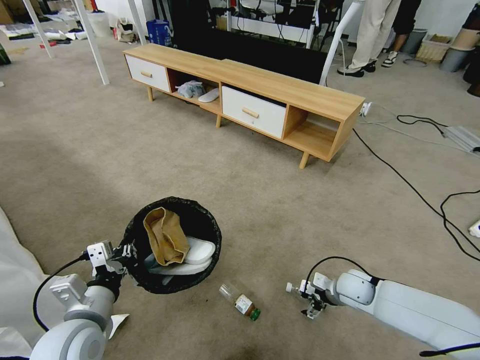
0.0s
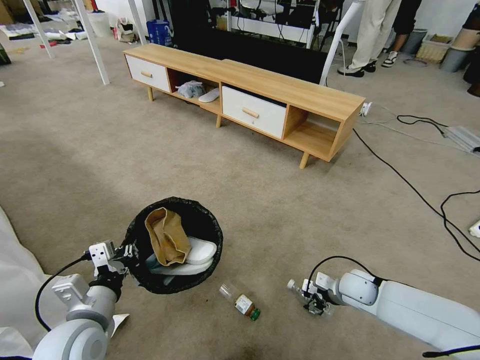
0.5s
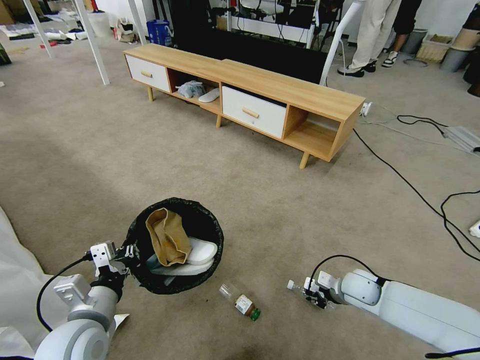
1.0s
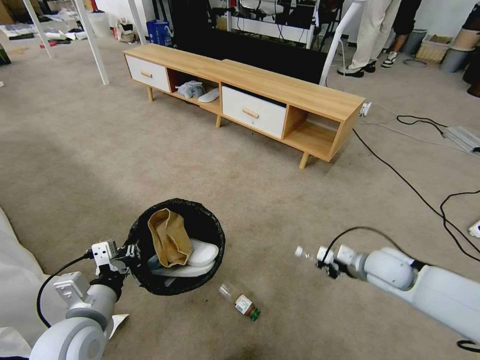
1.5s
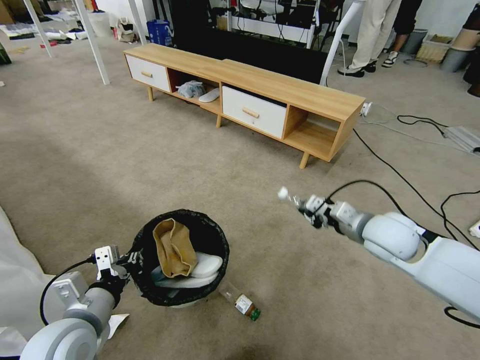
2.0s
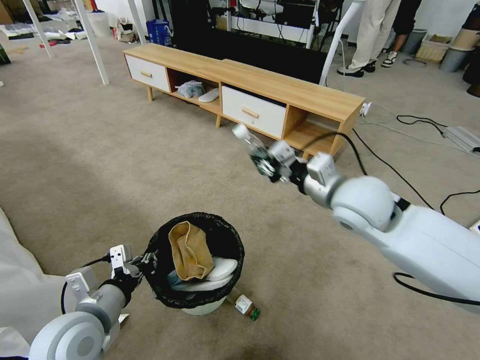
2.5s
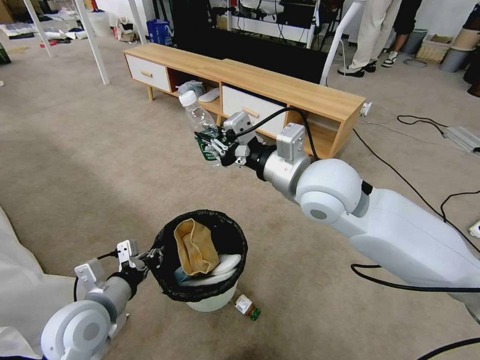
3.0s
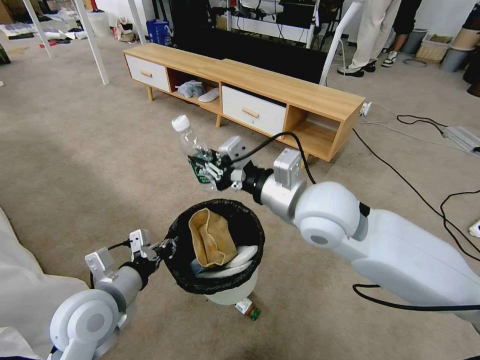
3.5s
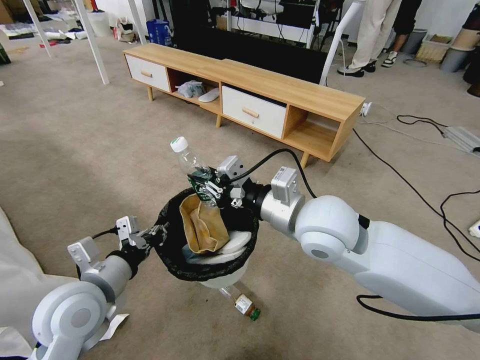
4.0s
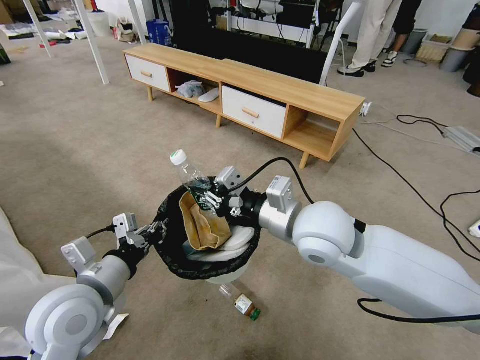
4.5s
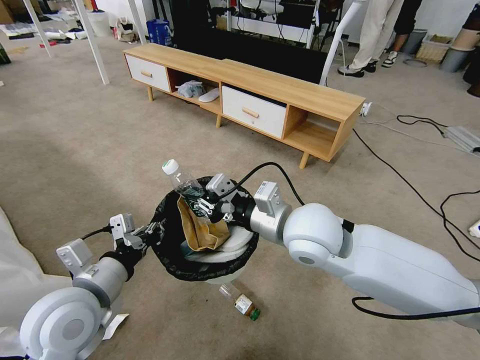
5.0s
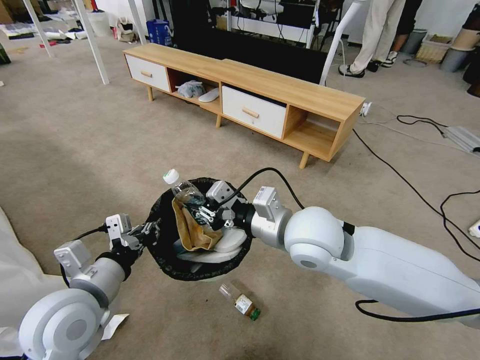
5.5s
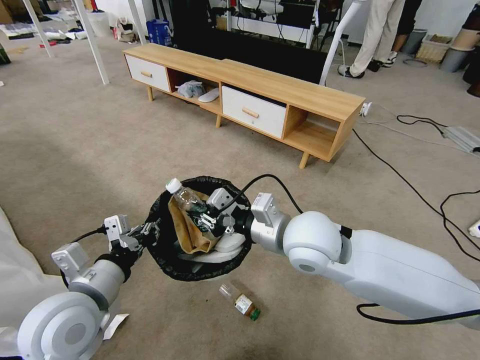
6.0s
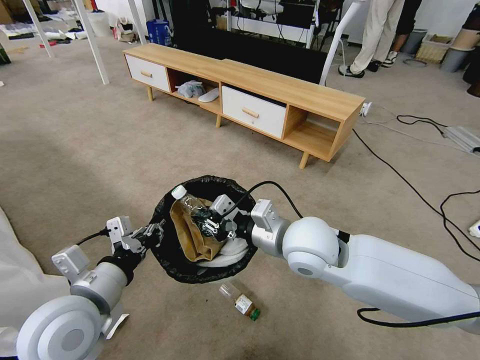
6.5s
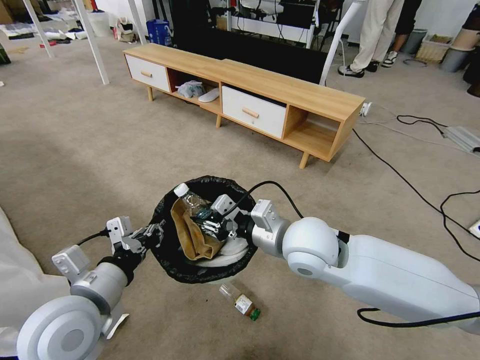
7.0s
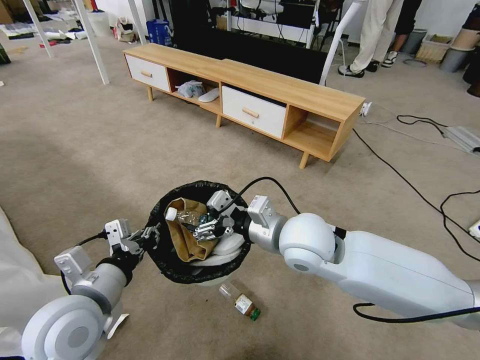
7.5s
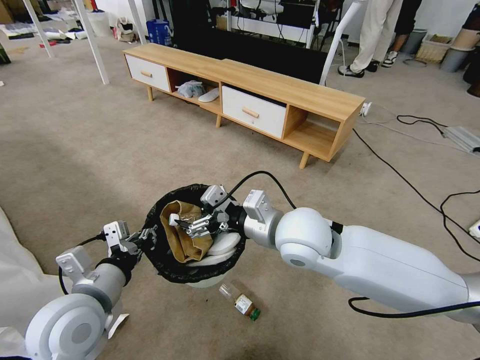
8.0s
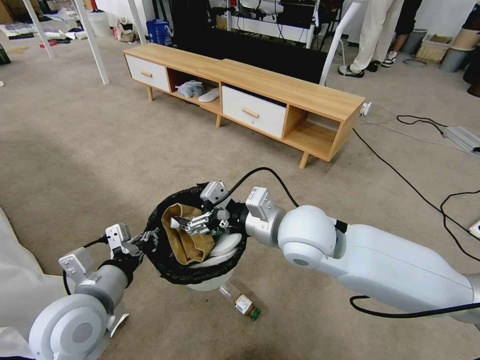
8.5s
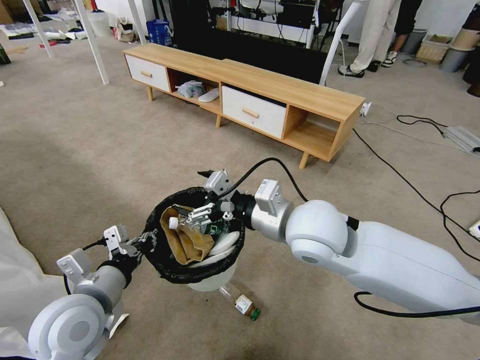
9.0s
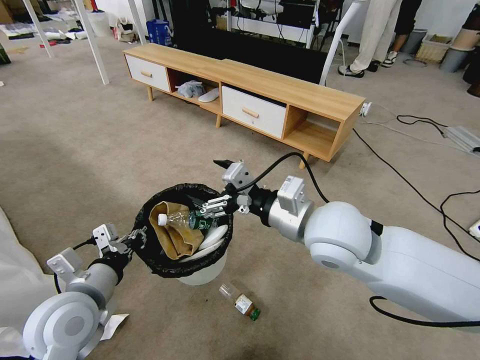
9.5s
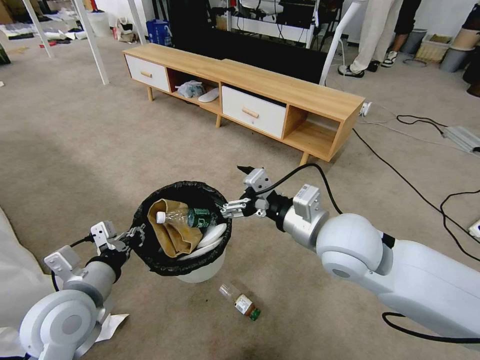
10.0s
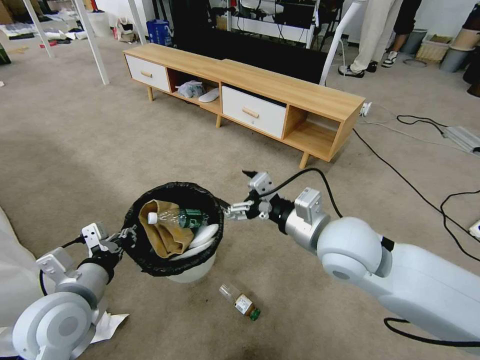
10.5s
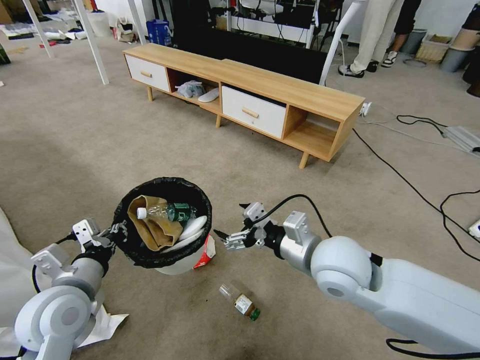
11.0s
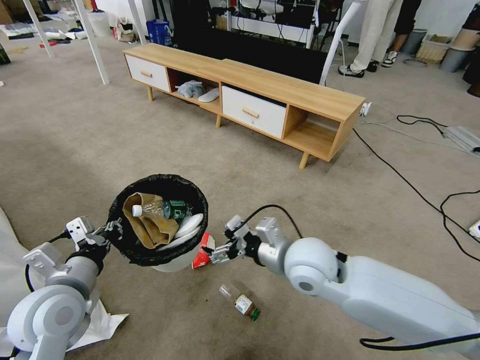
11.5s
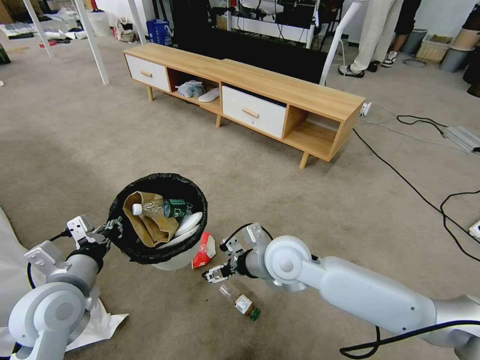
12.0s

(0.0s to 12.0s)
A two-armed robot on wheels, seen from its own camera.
Task of the whole recording: Pick up the trash bin and place the garbage on the floor into it.
0.0s - 2.0s: The right gripper travels upward by approximately 25 cm, and closes up.
2.0s - 4.0s: The left gripper changes place by some 5 cm. Meanwhile the right gripper shifts about 20 cm to the left and upward.
4.0s - 6.0s: The grippers stay close to where they were, moving slightly.
6.0s - 8.0s: The right gripper opens up.
8.0s - 10.0s: The right gripper is displaced to the right by roughly 5 cm.
10.0s - 12.0s: The right gripper is displaced downward and to the left by approximately 15 cm.

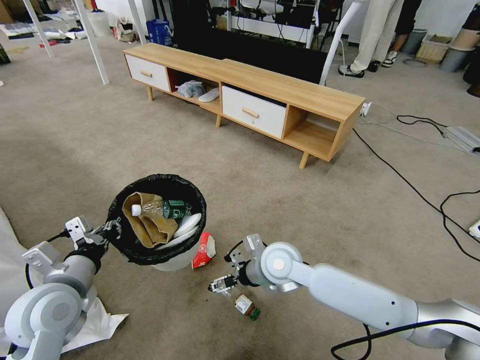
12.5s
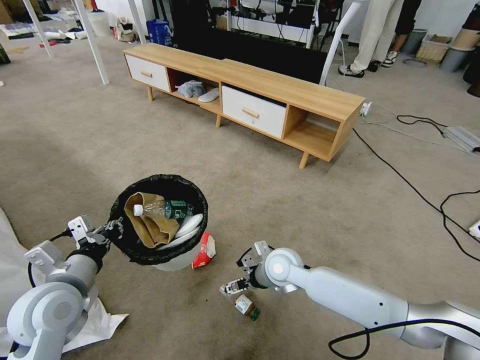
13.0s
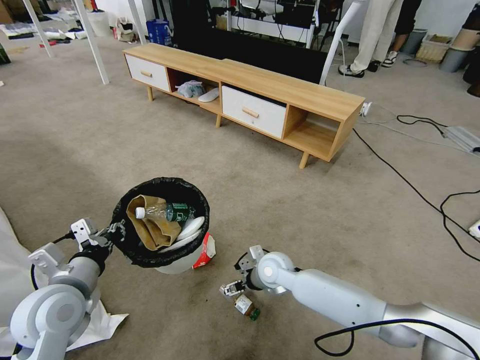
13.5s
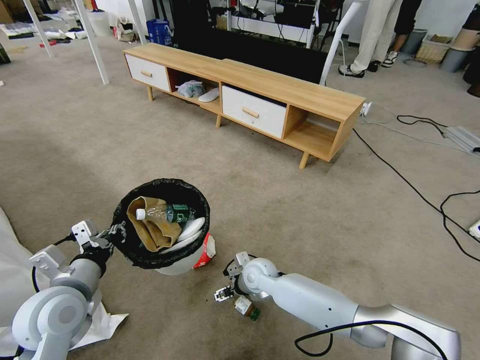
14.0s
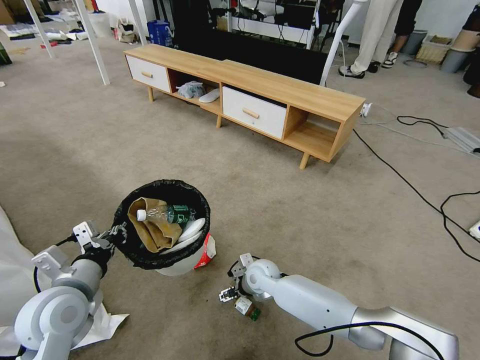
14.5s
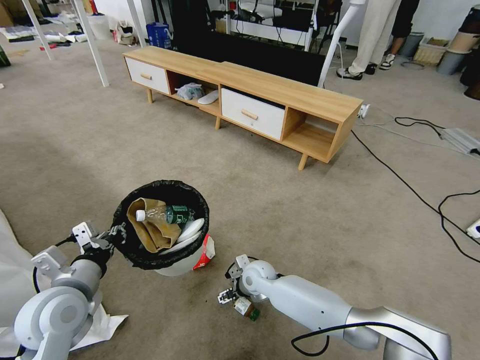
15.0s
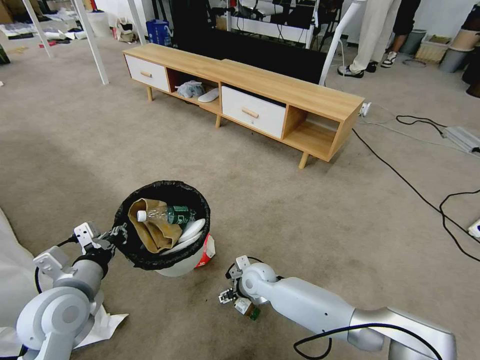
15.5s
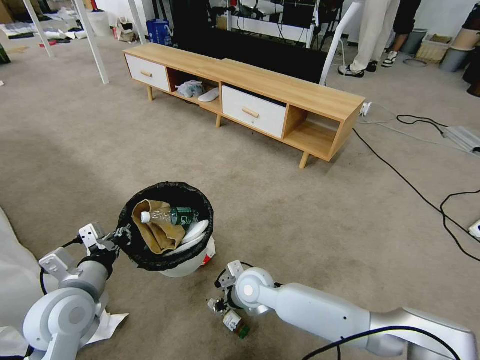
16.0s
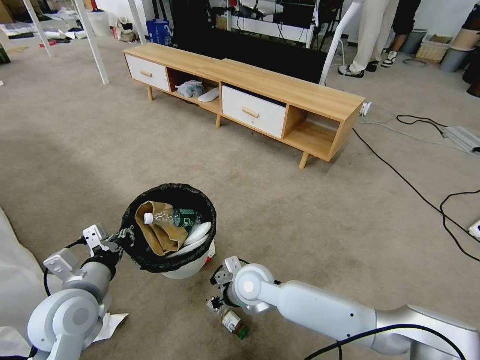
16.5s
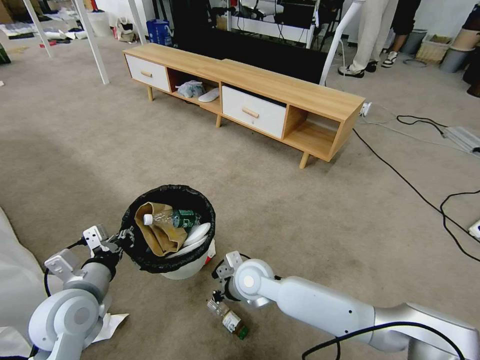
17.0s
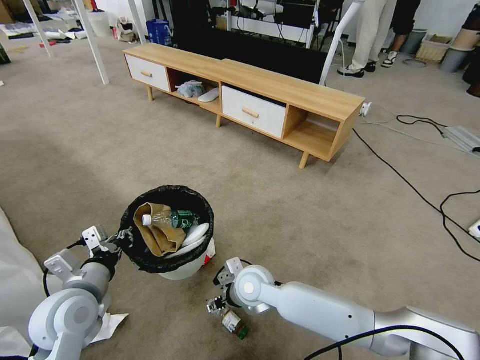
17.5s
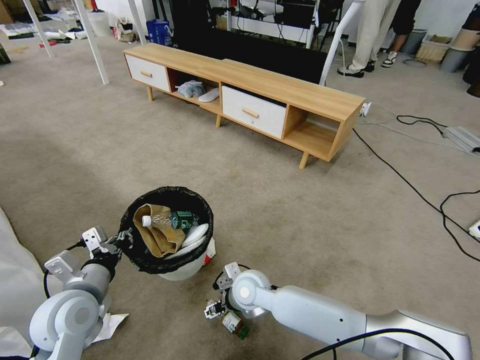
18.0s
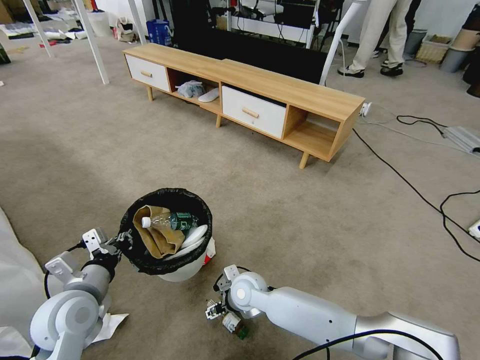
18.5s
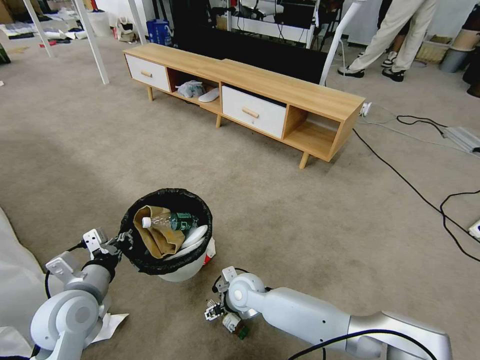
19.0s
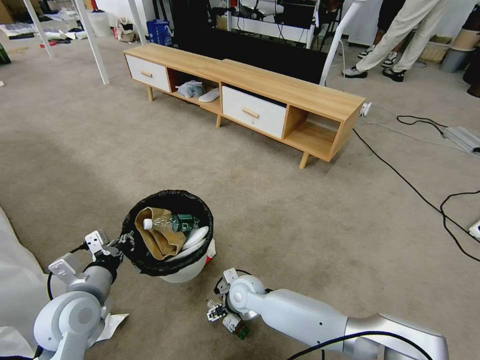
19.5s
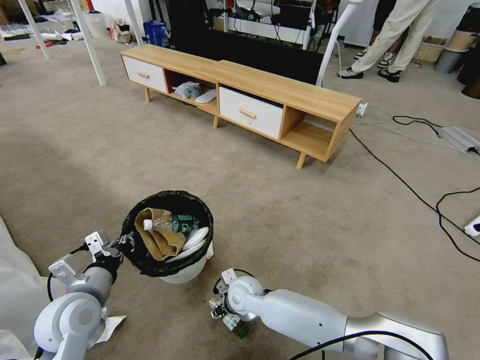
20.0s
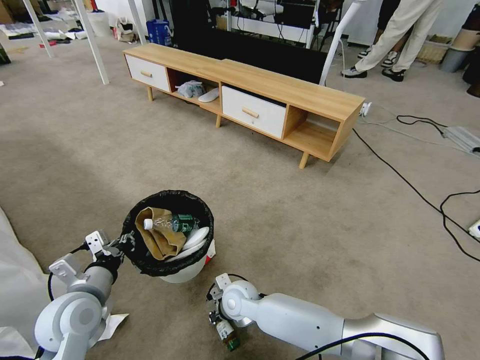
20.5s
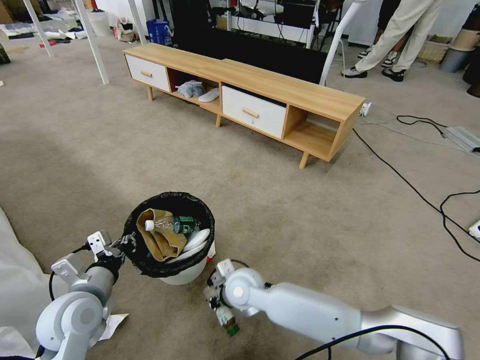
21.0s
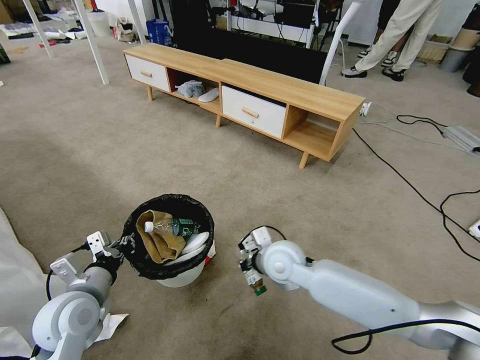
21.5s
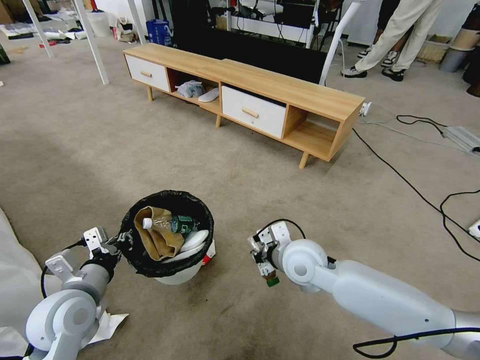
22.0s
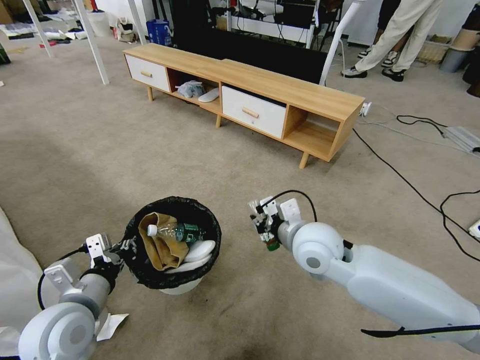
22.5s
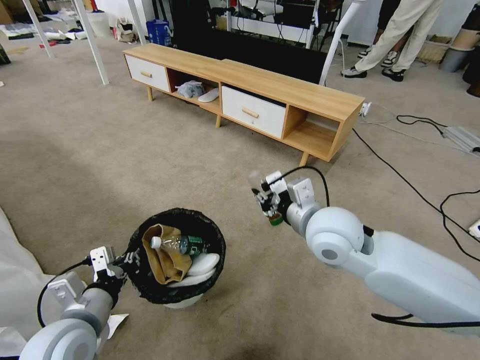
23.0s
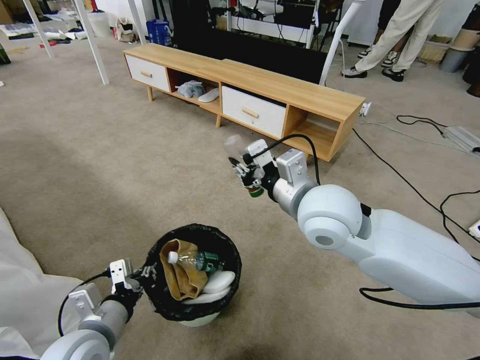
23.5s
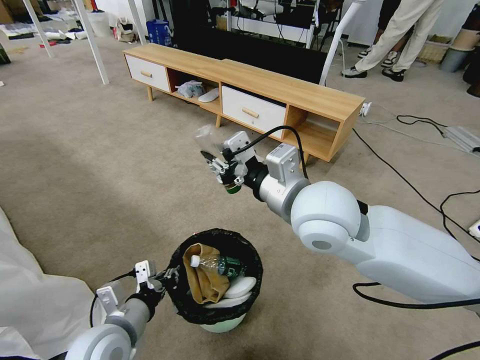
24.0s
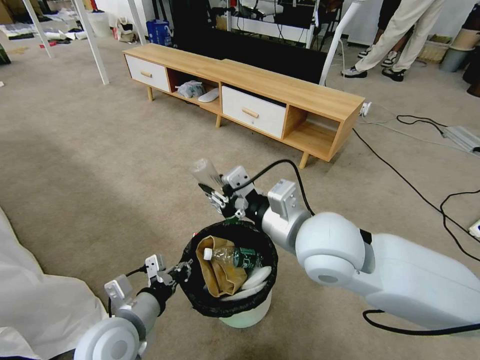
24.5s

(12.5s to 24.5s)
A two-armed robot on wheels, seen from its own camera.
Task of the whole recording: Pick up the trash bin and place the garbage on the floor into it.
12.5s - 14.5s: The right gripper moves downward, roughly 15 cm.
14.5s - 16.5s: The right gripper goes about 10 cm upward and backward, and closes its fingers.
16.5s - 18.5s: The right gripper travels downward by about 5 cm, and opens up.
18.5s - 20.5s: The right gripper closes up.
20.5s - 22.5s: The right gripper travels upward and to the right by some 30 cm.
22.5s - 24.5s: The right gripper travels upward and backward by approximately 10 cm, while the left gripper moves to the right, about 5 cm.

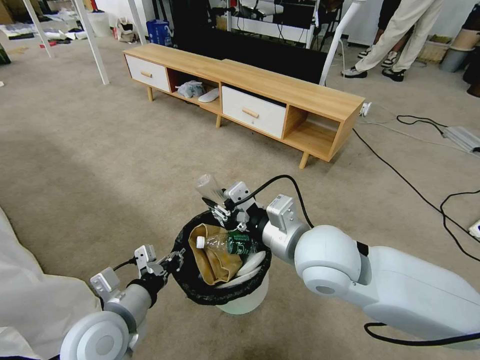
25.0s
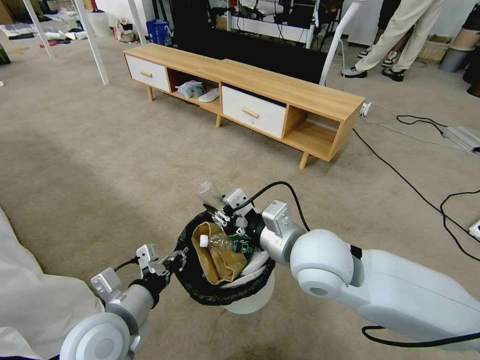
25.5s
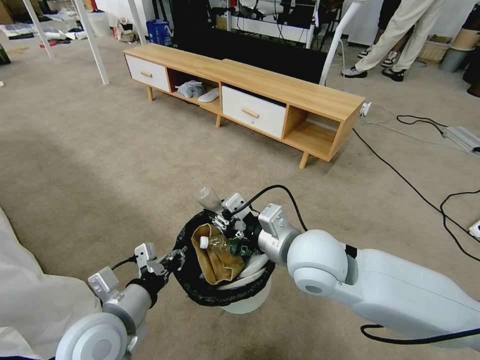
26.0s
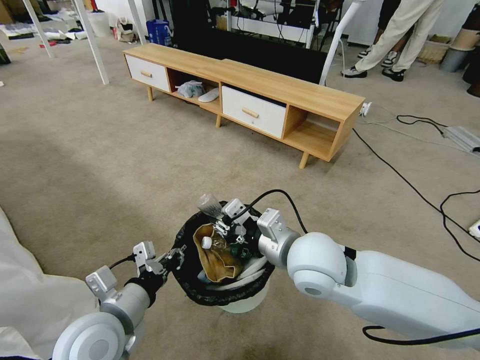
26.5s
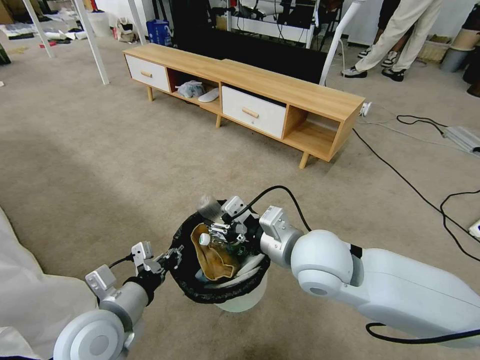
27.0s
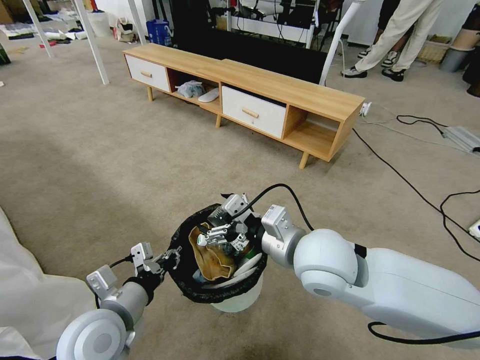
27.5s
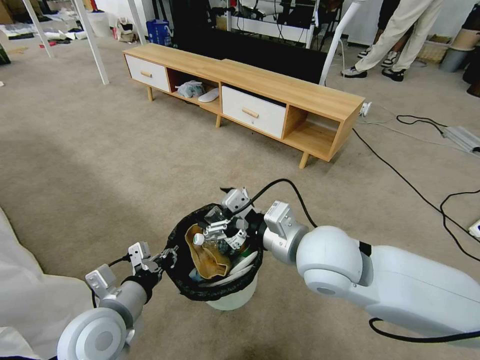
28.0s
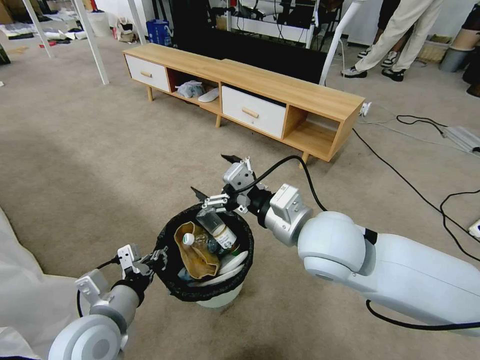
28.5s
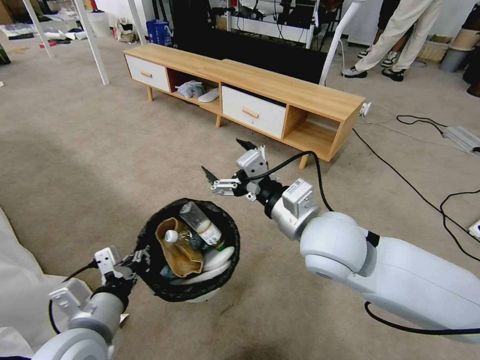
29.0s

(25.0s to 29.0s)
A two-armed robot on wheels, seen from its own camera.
Task of the whole recording: Pick up the trash bin and place the garbage on the floor into it.
25.0s - 27.0s: The grippers move only a little.
27.0s - 29.0s: The right gripper opens up.
